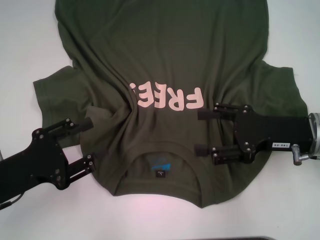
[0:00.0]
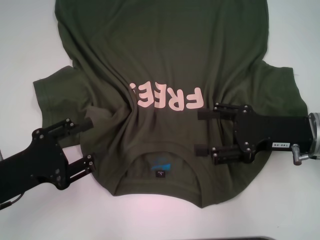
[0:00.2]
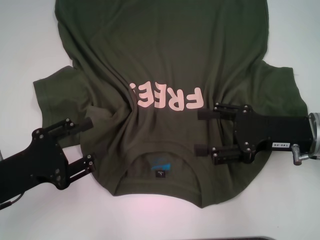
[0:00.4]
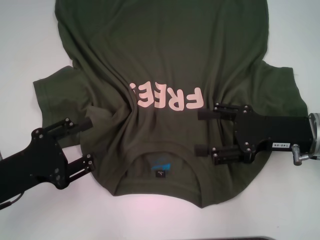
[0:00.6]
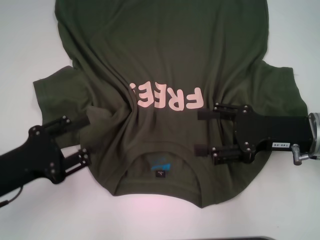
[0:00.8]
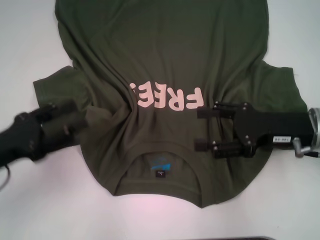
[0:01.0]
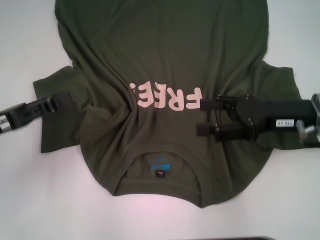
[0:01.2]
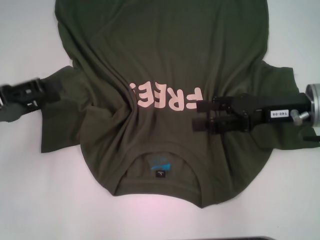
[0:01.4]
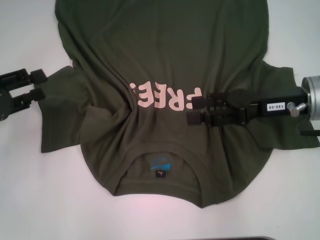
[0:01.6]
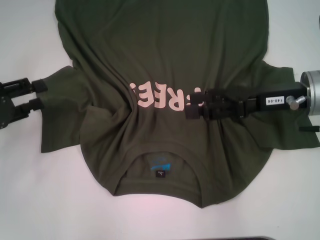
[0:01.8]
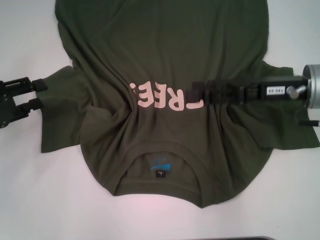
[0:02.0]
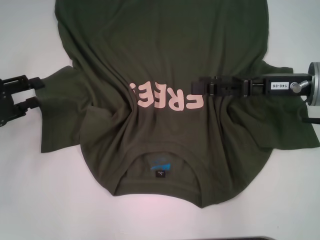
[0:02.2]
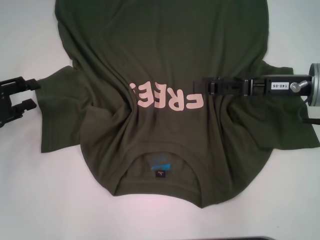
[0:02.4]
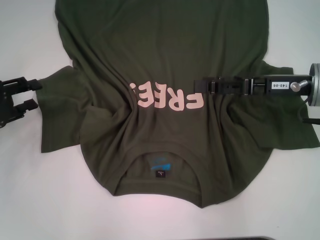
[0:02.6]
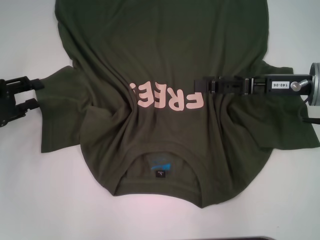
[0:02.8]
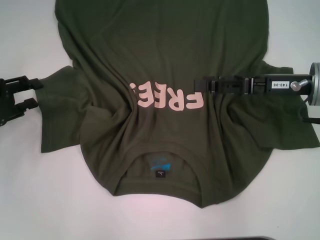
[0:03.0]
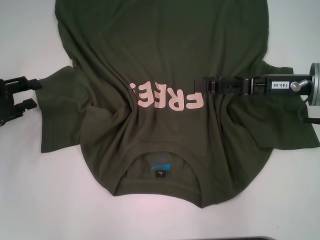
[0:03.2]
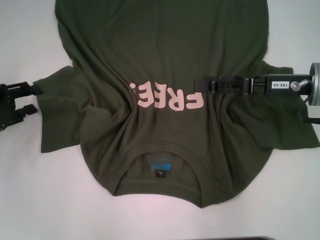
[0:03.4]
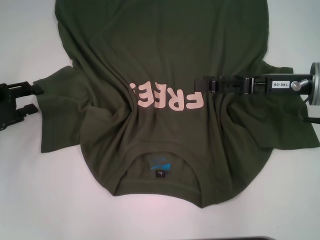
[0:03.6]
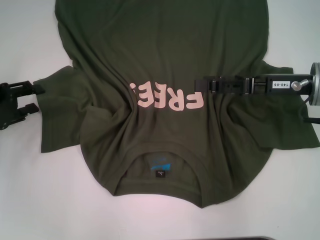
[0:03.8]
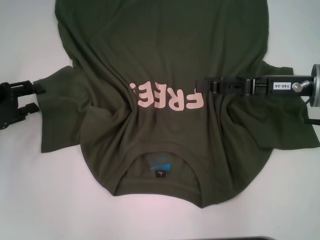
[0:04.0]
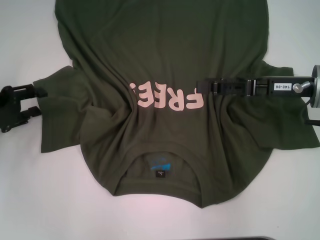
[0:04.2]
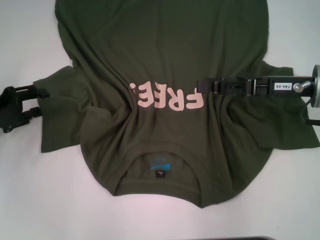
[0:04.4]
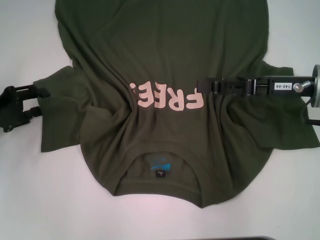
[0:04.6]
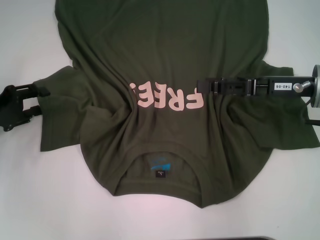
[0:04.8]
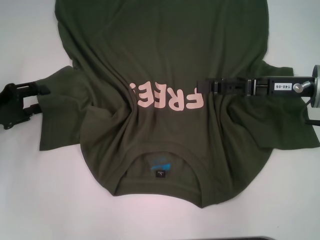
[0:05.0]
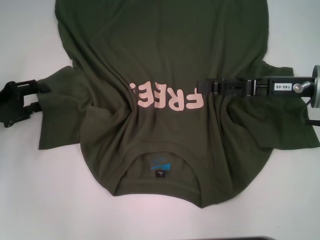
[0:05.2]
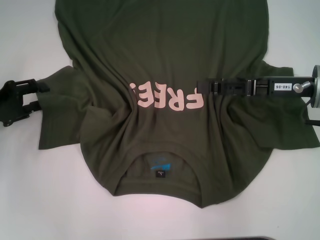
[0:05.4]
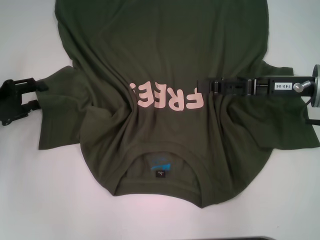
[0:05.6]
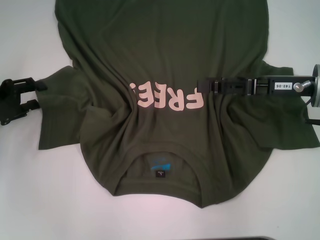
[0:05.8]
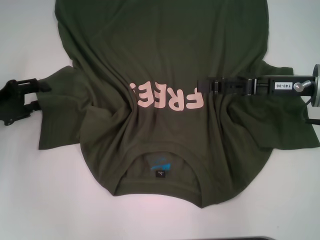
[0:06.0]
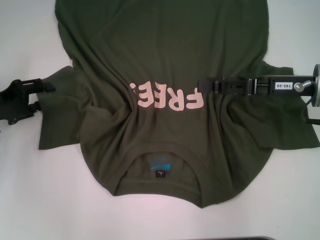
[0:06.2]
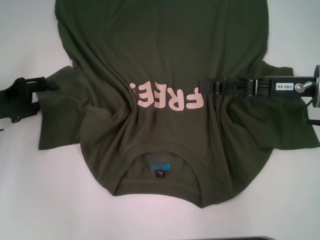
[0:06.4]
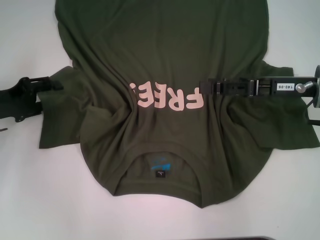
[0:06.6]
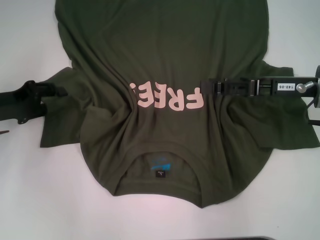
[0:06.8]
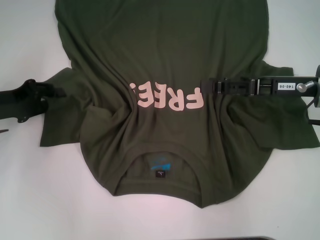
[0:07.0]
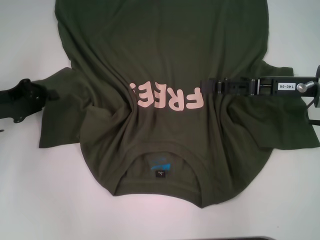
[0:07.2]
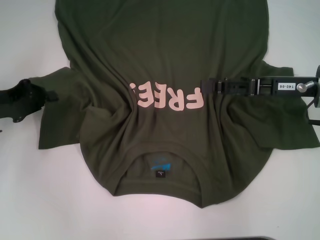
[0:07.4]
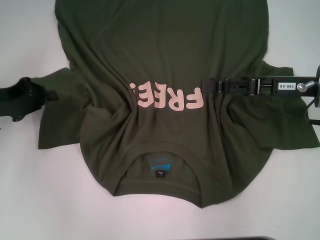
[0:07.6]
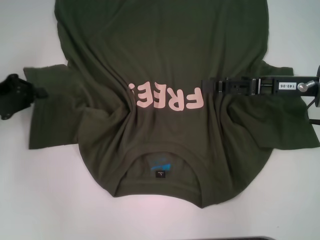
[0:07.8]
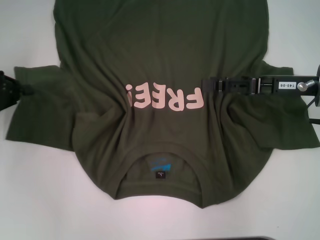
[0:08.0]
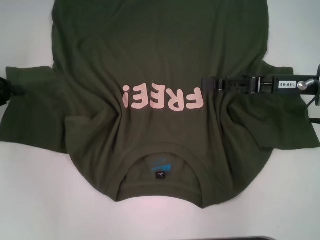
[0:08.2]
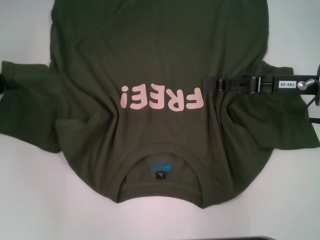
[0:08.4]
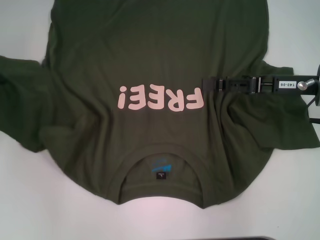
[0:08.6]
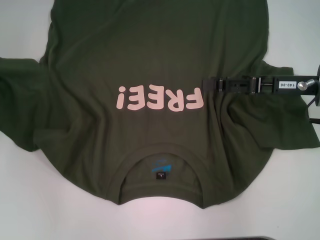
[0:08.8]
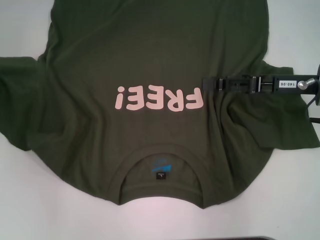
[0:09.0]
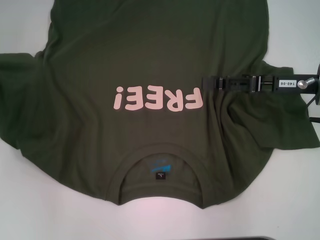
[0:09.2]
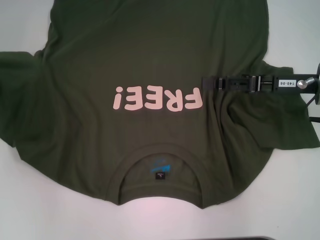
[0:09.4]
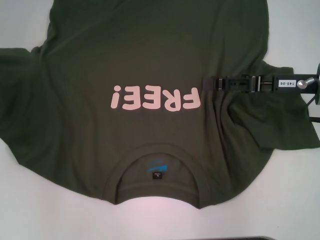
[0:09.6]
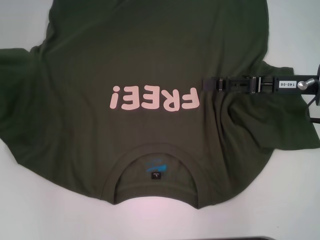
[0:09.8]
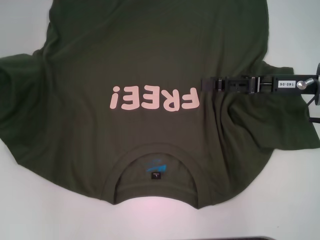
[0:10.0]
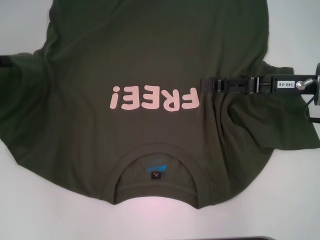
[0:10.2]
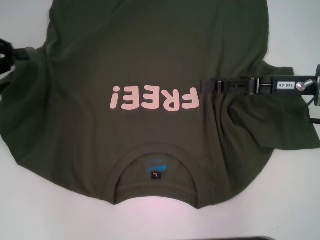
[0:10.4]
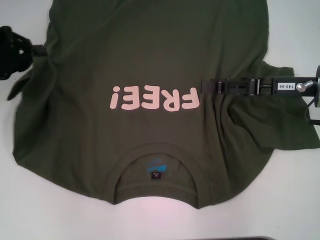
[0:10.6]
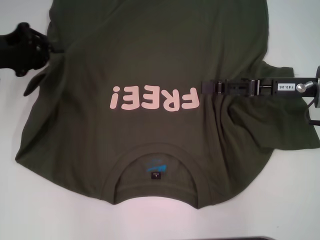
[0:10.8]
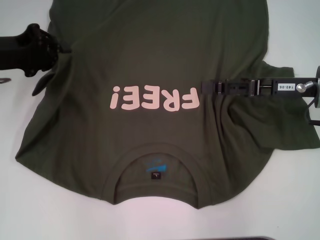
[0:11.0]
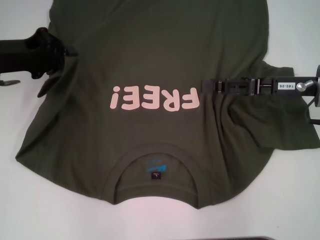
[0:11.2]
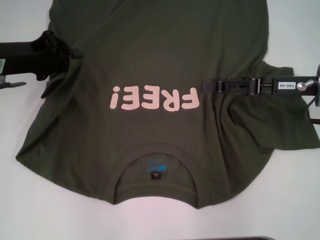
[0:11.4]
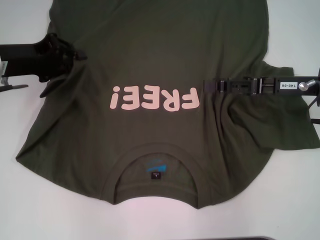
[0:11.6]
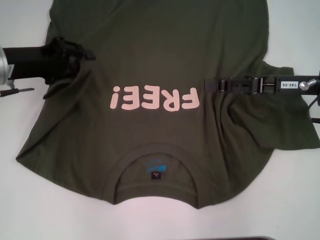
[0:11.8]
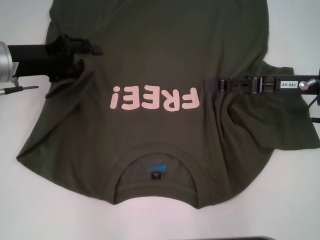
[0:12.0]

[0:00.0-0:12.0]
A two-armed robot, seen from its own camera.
0:00.0 to 0:01.6: The left gripper is displaced forward and to the left by roughly 10 cm. The right gripper changes place by about 5 cm.
0:01.6 to 0:03.0: The grippers make only small movements.
0:03.0 to 0:04.4: The grippers make only small movements.
0:04.4 to 0:06.0: Neither gripper changes place.
0:06.0 to 0:07.6: The left gripper closes up.
0:07.6 to 0:09.0: The left gripper travels to the left and upward by roughly 10 cm.
0:09.0 to 0:10.4: The grippers stay close to where they were, moving slightly.
0:10.4 to 0:12.0: The left gripper travels to the right by about 10 cm.

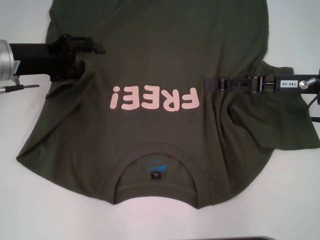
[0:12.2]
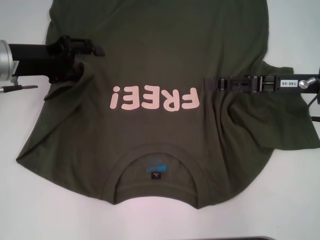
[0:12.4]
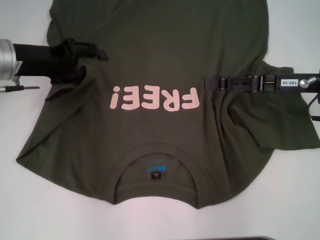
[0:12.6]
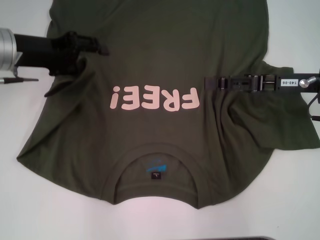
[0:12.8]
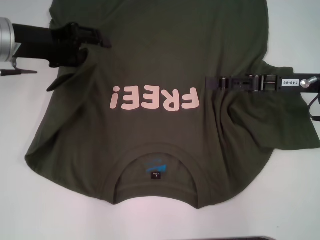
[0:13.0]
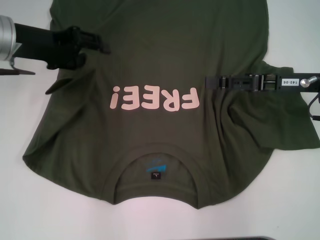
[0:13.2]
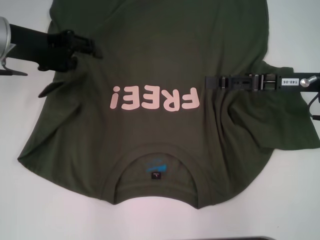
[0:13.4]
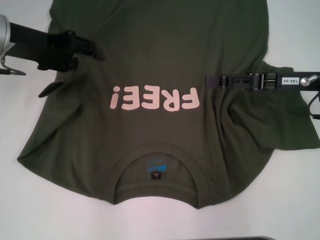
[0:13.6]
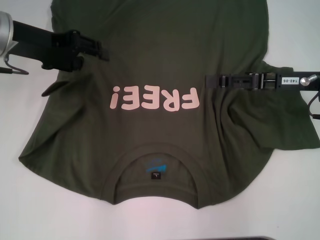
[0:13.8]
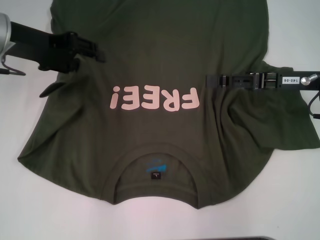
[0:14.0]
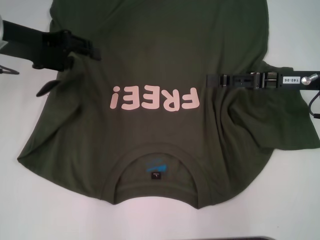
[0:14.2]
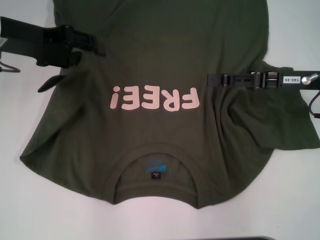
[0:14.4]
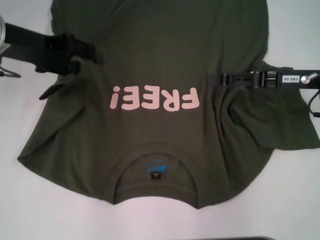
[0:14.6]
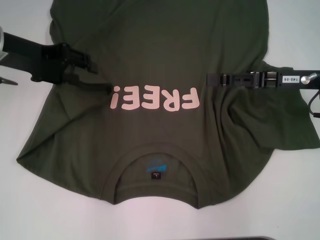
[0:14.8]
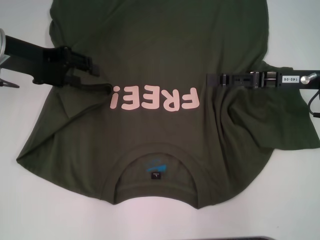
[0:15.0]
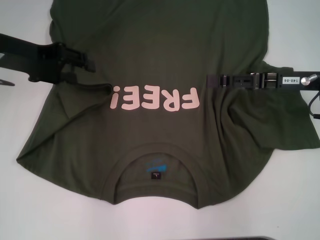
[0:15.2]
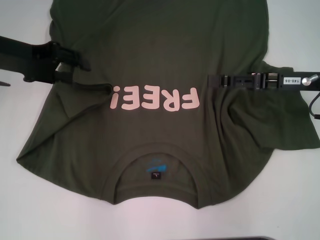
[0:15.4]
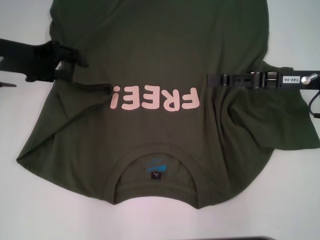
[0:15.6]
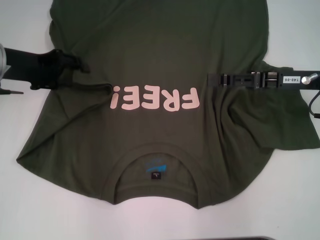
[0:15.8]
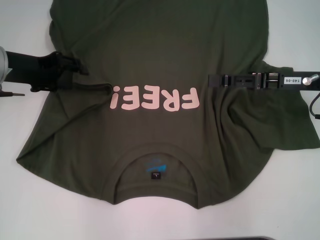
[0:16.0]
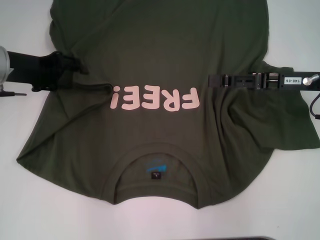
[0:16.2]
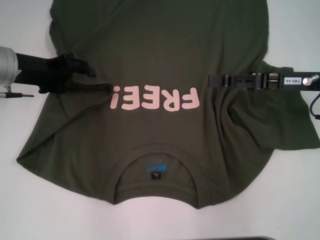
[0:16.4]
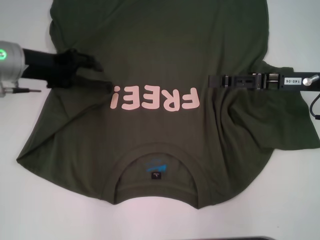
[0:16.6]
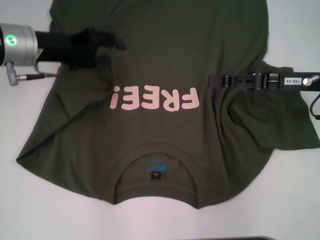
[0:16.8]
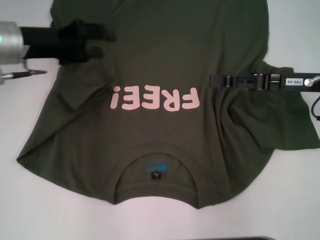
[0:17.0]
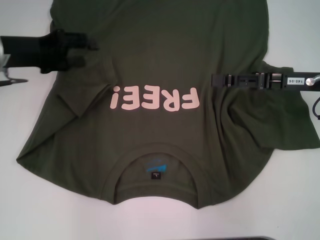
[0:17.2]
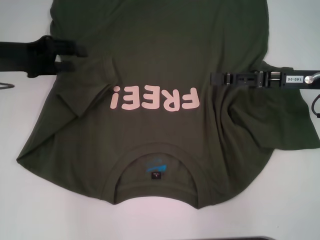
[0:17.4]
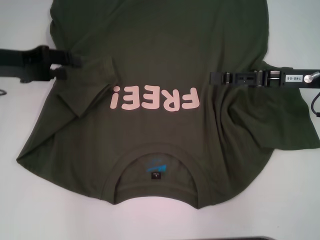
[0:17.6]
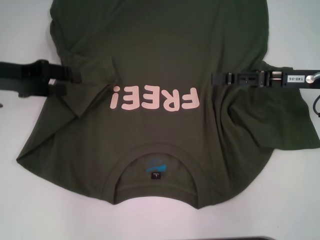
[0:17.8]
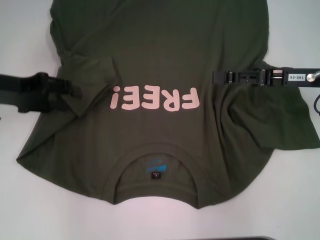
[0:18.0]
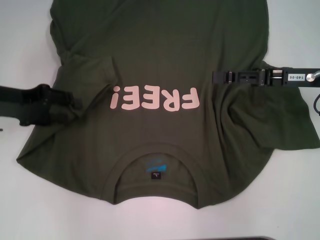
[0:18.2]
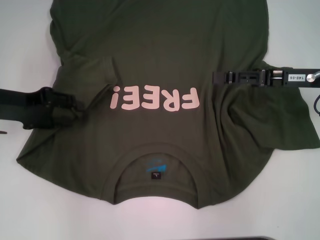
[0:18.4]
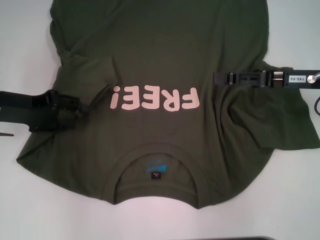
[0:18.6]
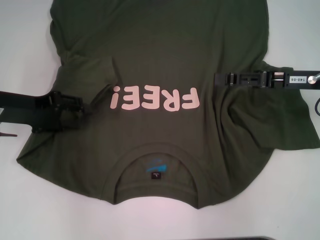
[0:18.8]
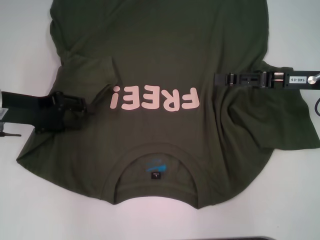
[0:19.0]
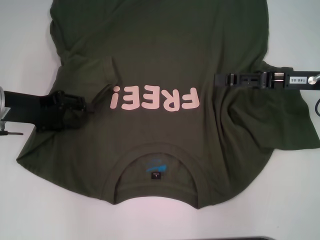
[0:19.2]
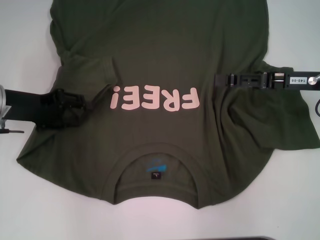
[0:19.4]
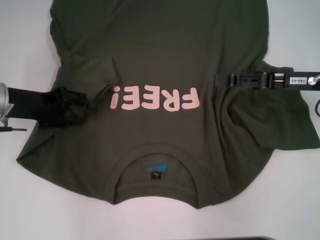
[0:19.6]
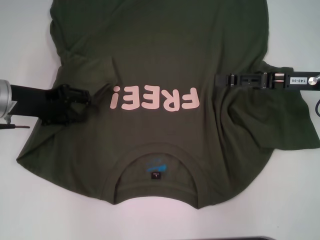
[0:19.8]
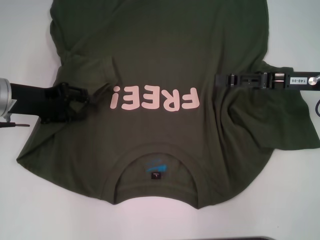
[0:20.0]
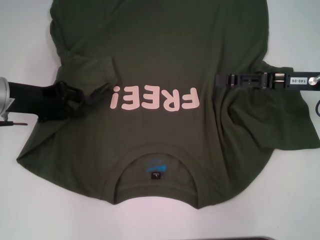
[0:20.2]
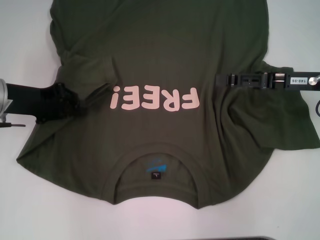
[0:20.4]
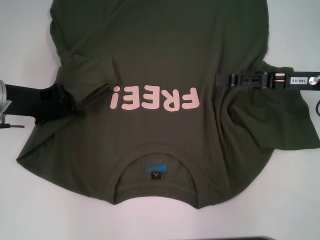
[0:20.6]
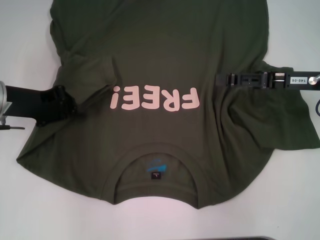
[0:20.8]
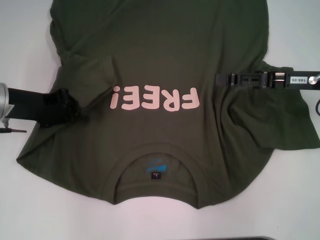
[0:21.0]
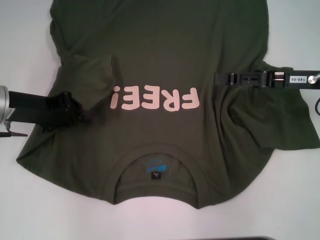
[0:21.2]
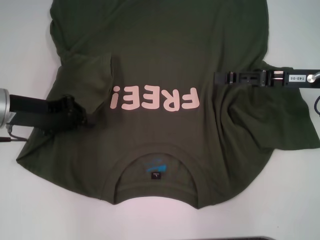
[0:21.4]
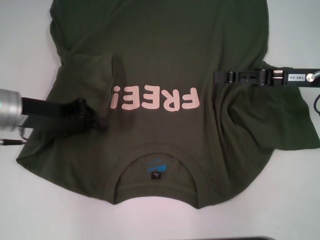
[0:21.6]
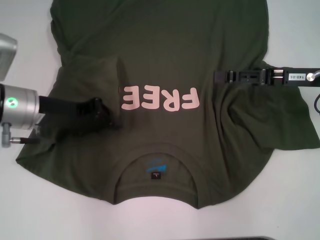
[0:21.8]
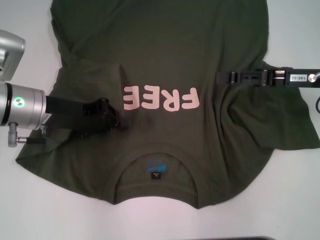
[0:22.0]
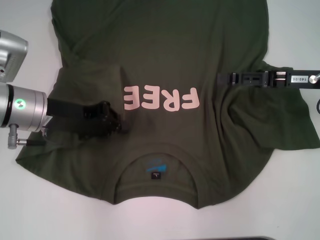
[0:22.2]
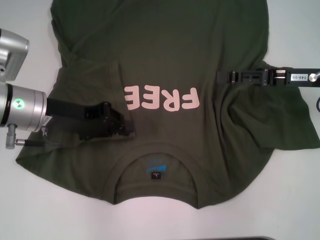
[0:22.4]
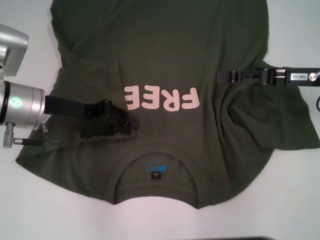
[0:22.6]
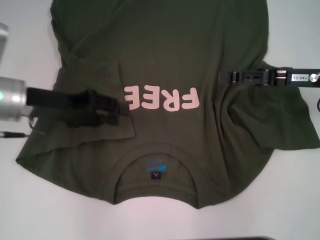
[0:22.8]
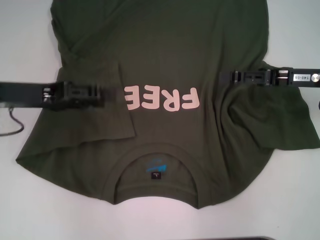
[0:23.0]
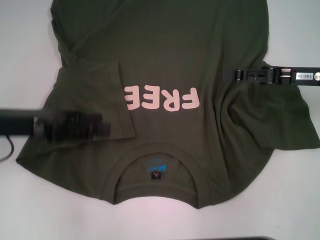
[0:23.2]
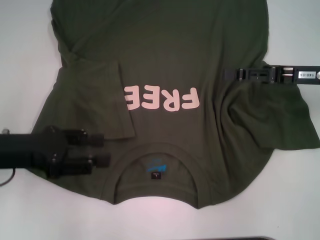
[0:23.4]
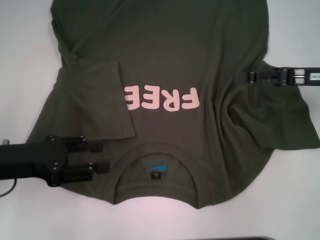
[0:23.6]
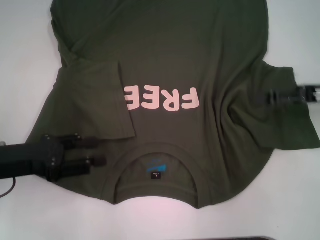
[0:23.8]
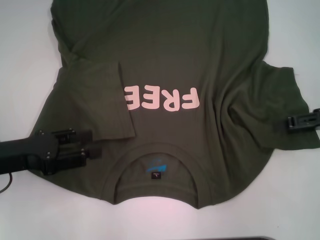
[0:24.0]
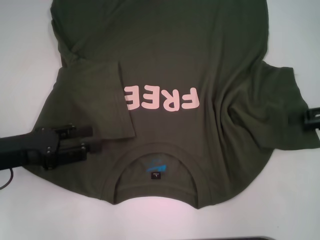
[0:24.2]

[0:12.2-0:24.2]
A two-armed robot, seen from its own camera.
Step, 0:12.2 to 0:22.4: Fold the bottom left sleeve with your left hand.
0:12.2 to 0:13.8: The left gripper is displaced upward by approximately 5 cm.
0:13.8 to 0:15.2: The grippers stay close to where they were, moving slightly.
0:15.2 to 0:16.6: The left gripper heads downward, covering approximately 5 cm.
0:16.6 to 0:18.2: The left gripper changes place by approximately 5 cm.
0:18.2 to 0:19.8: The grippers stay close to where they were, moving slightly.
0:19.8 to 0:21.2: The left gripper closes.
0:21.2 to 0:22.6: The left gripper moves to the right, some 5 cm.
0:22.6 to 0:24.2: The right gripper is displaced to the right by about 10 cm; the left gripper is displaced backward and to the left by roughly 10 cm, and opens its fingers.
